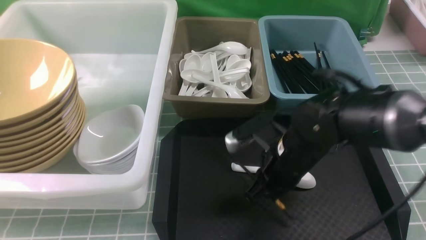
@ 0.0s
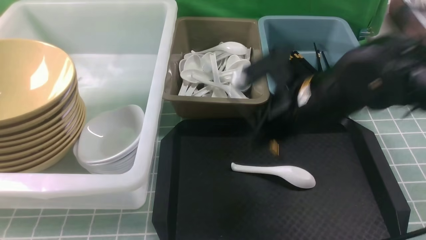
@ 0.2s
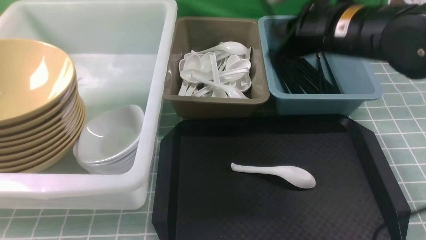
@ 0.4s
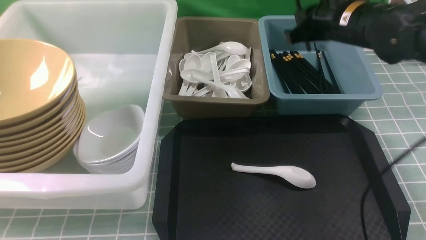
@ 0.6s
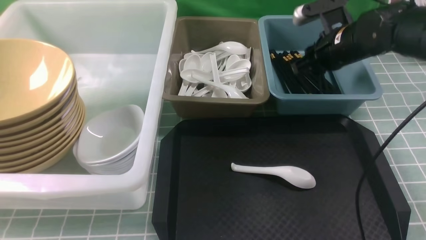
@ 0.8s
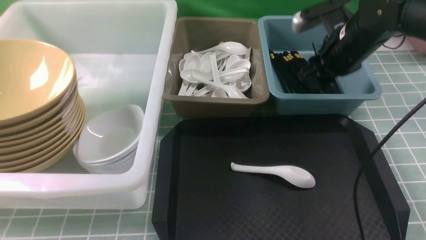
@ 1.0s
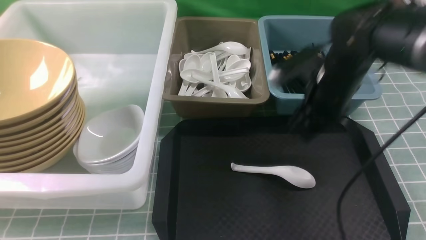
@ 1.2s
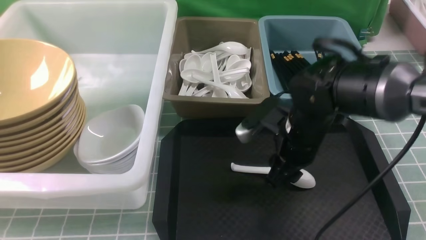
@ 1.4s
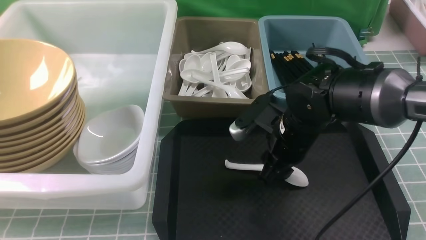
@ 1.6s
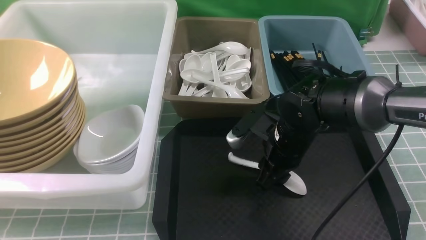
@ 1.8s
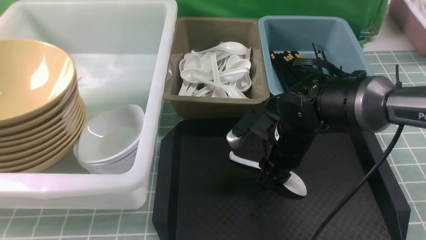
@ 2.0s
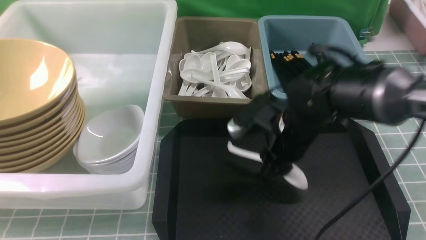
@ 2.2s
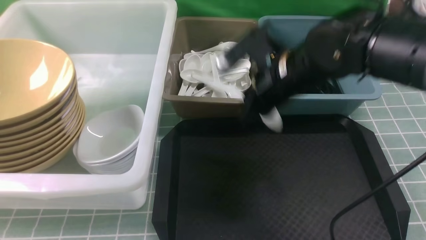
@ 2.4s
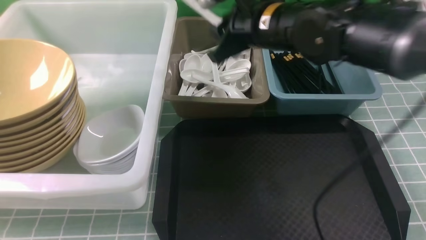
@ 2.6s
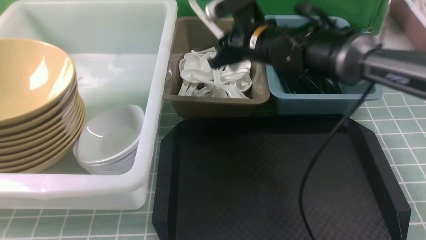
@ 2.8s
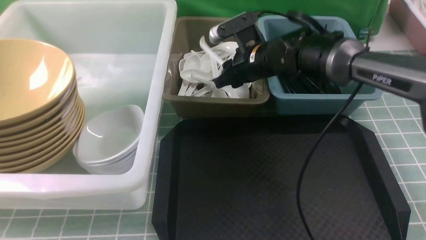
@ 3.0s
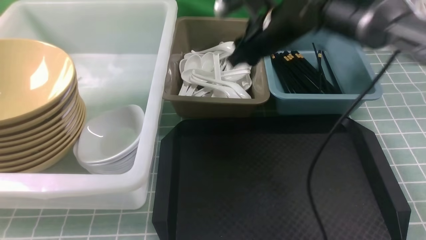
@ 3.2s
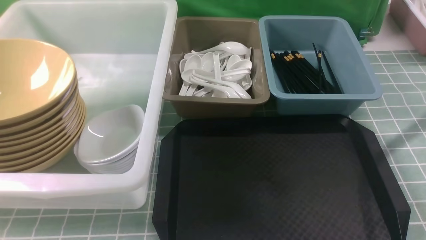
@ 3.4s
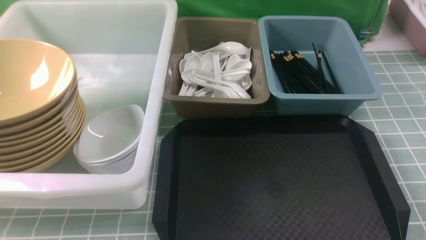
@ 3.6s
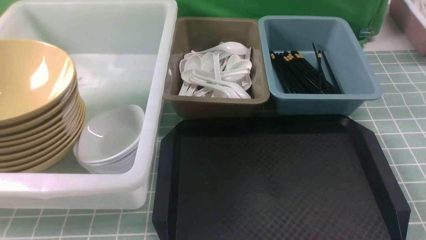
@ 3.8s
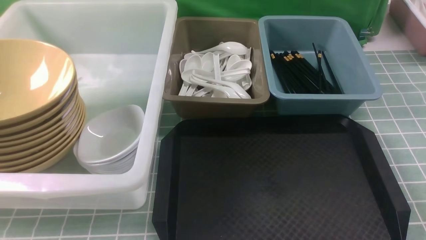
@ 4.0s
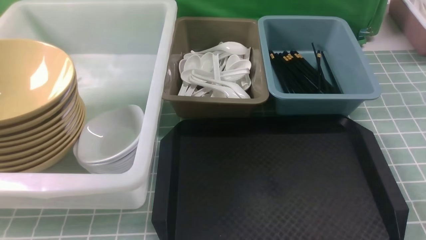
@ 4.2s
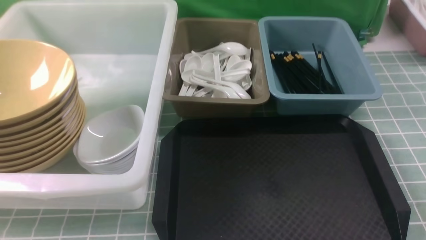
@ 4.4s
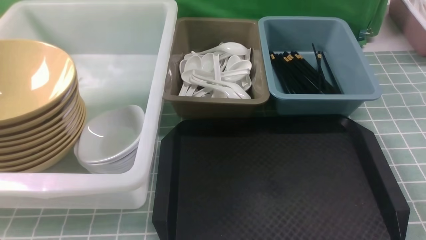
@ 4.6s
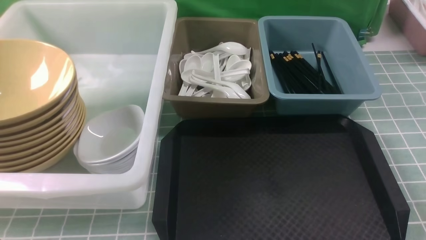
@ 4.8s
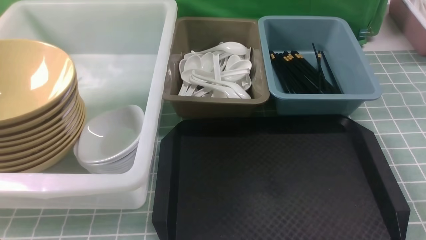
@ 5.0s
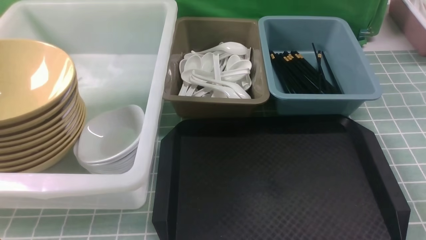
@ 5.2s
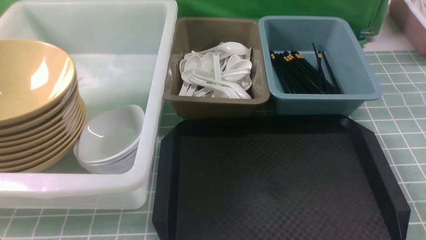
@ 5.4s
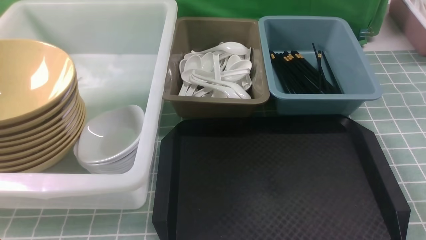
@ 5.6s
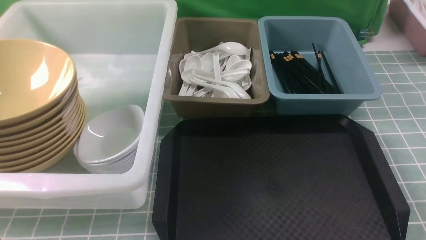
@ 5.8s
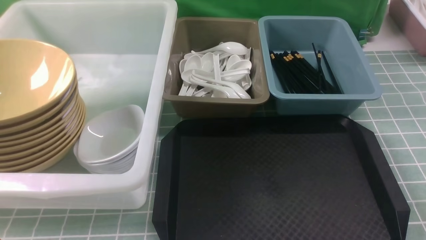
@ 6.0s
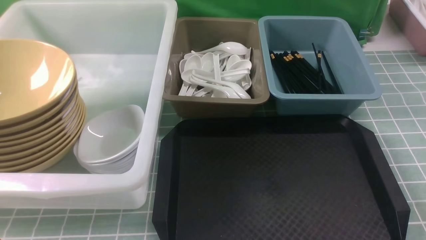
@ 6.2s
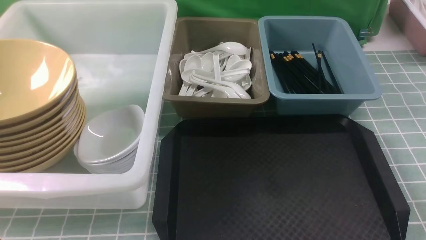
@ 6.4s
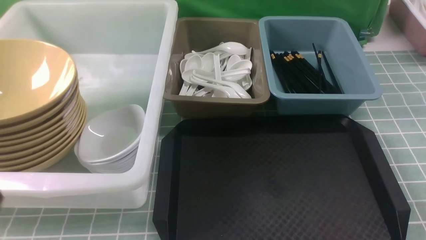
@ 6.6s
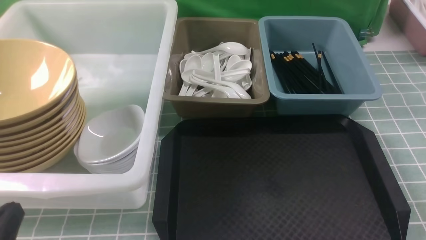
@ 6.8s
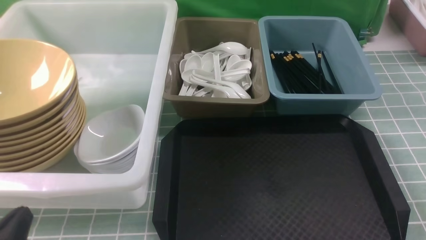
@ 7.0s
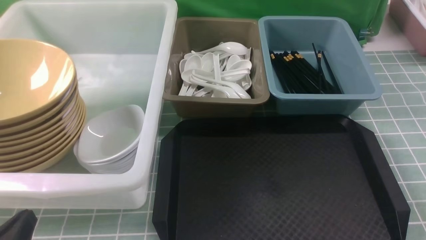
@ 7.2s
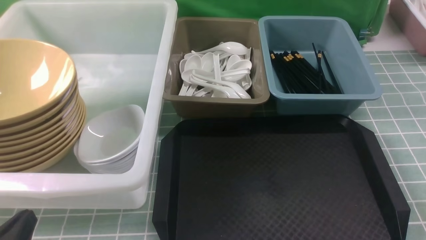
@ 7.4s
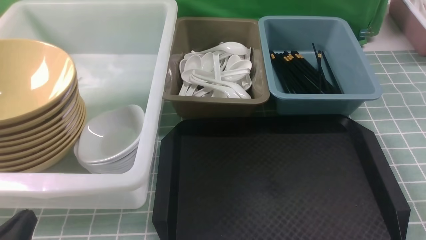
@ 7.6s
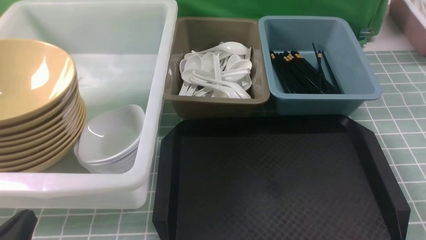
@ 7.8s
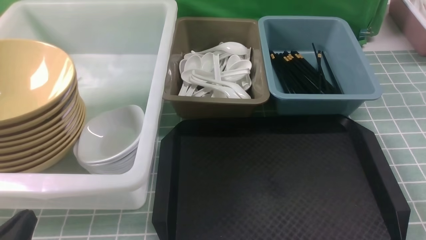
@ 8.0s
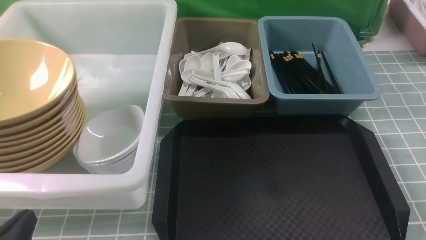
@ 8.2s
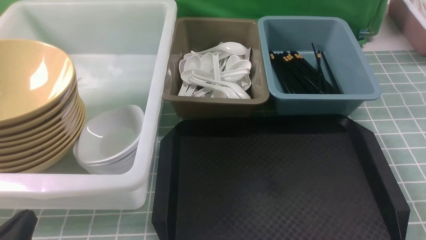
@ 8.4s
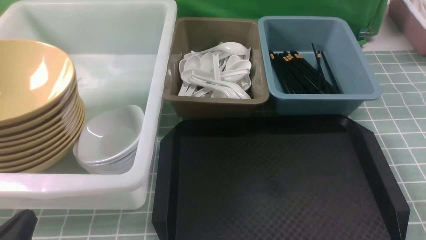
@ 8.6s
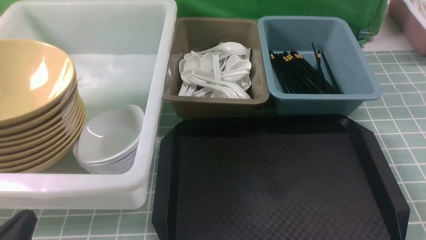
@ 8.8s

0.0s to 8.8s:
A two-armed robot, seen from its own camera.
Task of the whole recording: on blue table put chopsticks spoon bowls plates into blue grey white boxes.
Step, 0.4s to 0.8s: use the right arm to put a chopstick into the small storage box on the right.
Step, 1.0s to 2.4s: use the right arm to grab the soup spoon in the middle.
Step, 2.6s to 3.0s: use the right arm to put the soup spoon into the small storage box in the middle.
0.0s to 1.4s: The right gripper reaches some 15 cm forward, then returns, and opens its fingers.
1.4s to 3.0s: The right gripper shifts approximately 15 cm forward and upward.
3.0s to 4.4s: The right gripper travels backward and to the right by some 40 cm, and closes up.
5.8s to 7.4s: The left gripper shifts roughly 10 cm downward.
7.4s to 8.8s: Neither gripper changes place.

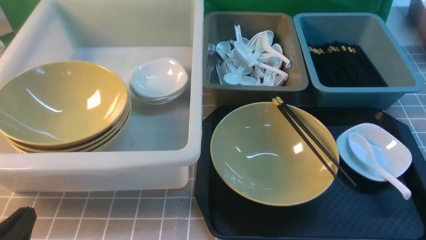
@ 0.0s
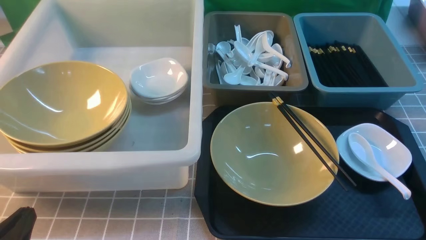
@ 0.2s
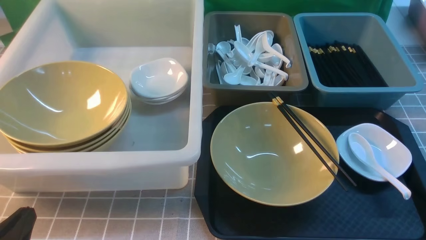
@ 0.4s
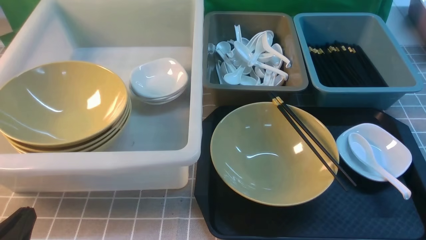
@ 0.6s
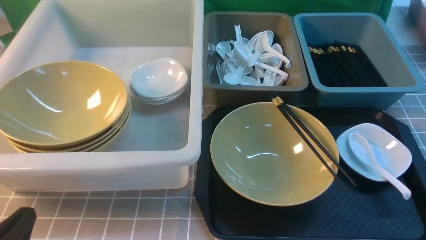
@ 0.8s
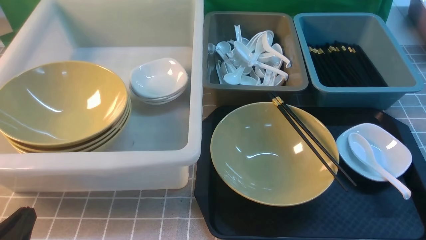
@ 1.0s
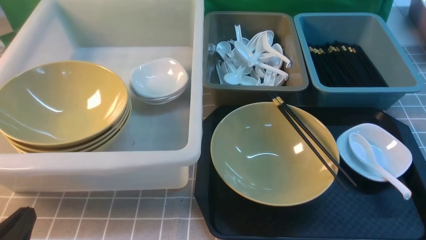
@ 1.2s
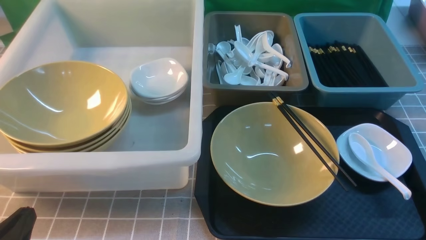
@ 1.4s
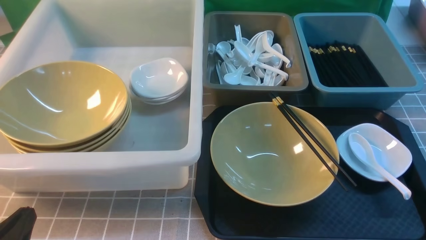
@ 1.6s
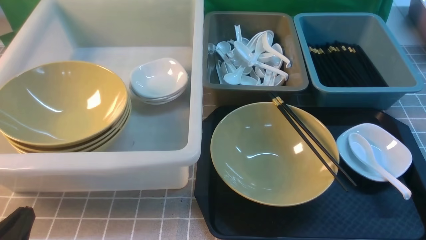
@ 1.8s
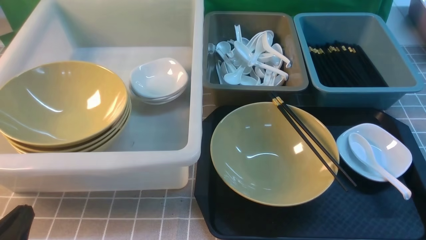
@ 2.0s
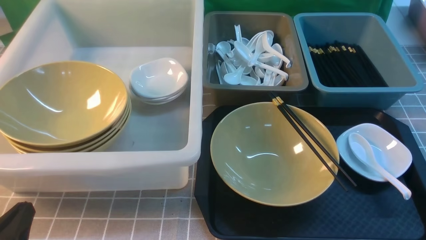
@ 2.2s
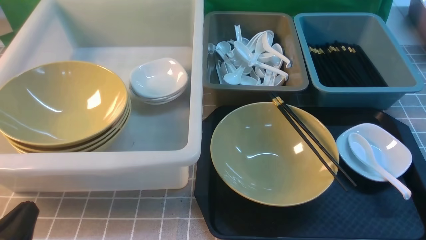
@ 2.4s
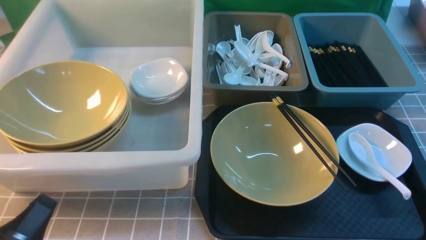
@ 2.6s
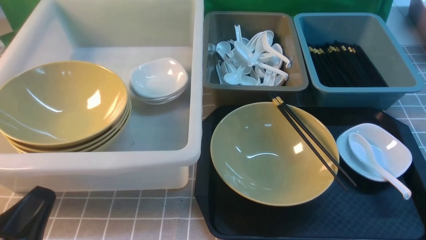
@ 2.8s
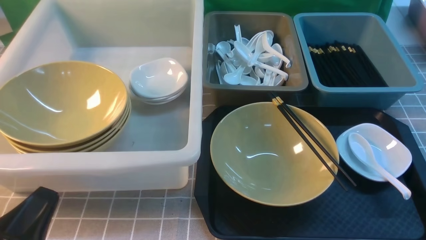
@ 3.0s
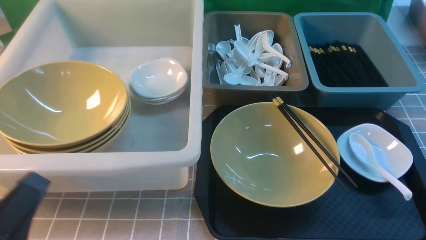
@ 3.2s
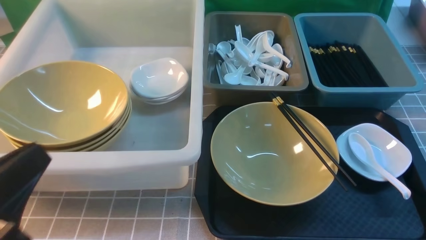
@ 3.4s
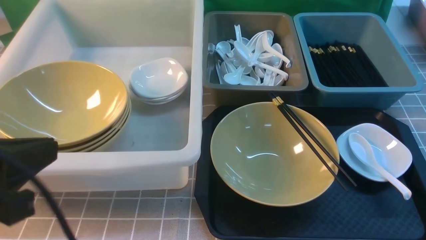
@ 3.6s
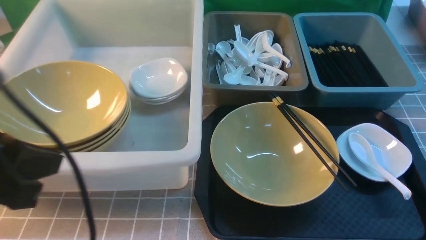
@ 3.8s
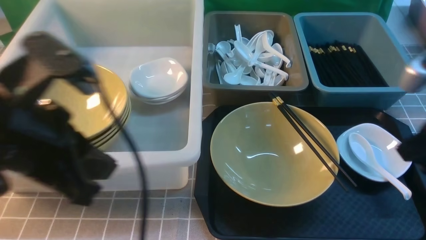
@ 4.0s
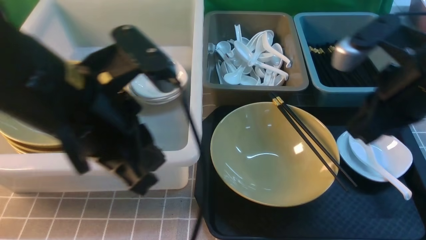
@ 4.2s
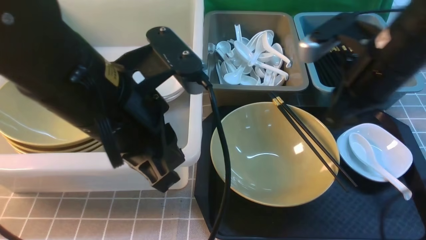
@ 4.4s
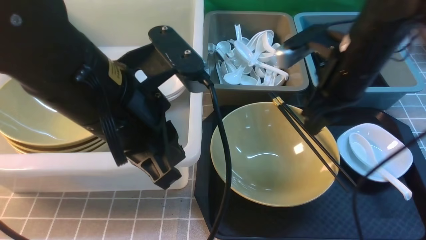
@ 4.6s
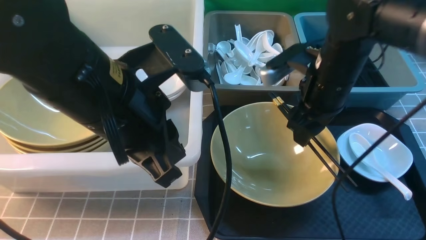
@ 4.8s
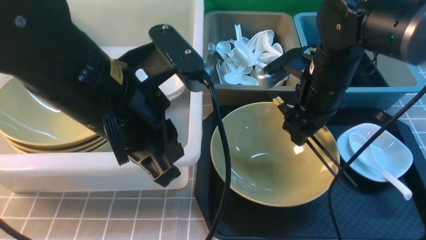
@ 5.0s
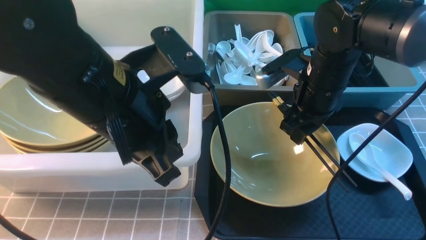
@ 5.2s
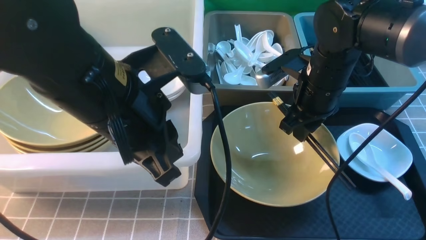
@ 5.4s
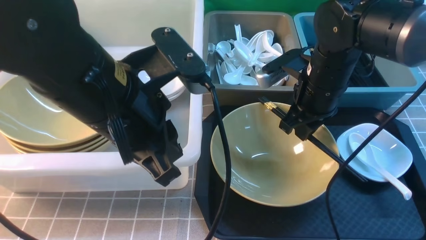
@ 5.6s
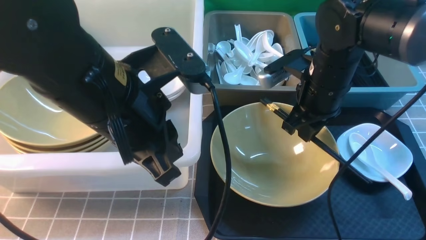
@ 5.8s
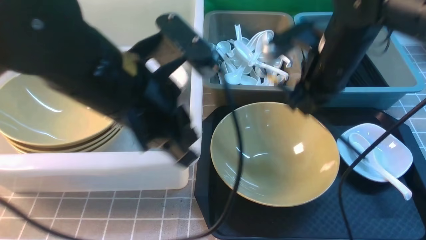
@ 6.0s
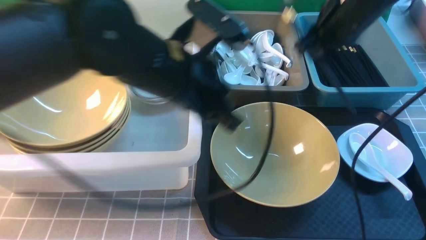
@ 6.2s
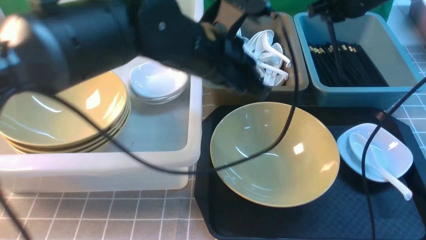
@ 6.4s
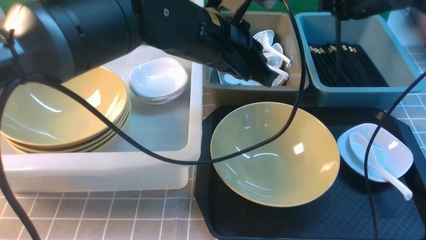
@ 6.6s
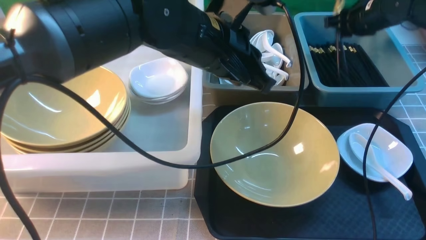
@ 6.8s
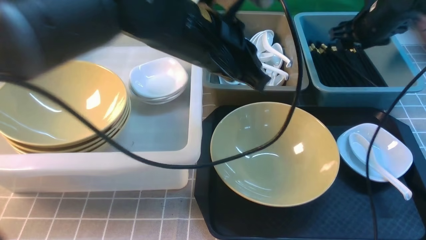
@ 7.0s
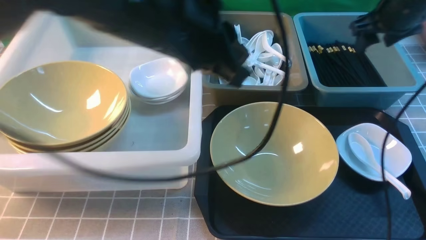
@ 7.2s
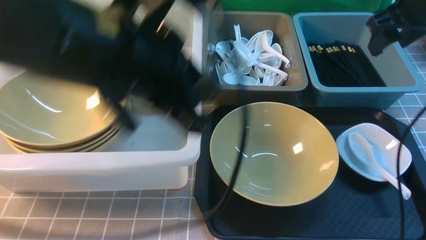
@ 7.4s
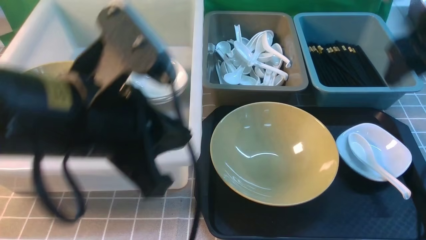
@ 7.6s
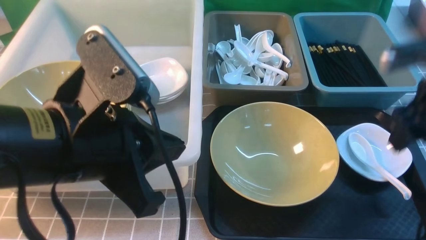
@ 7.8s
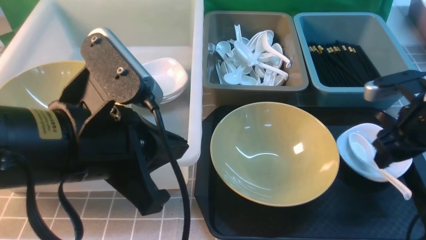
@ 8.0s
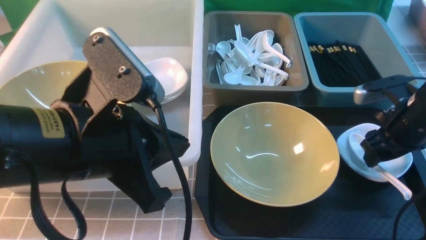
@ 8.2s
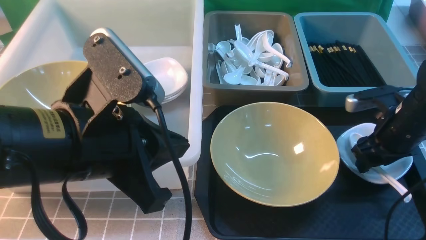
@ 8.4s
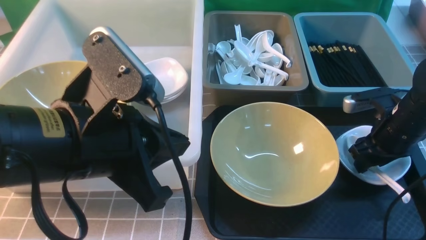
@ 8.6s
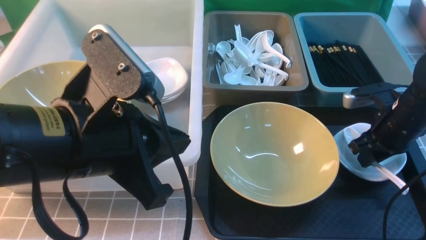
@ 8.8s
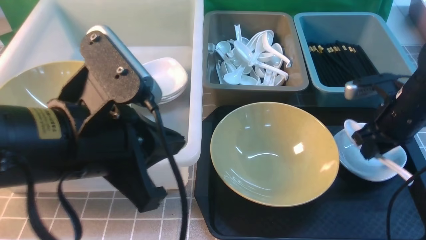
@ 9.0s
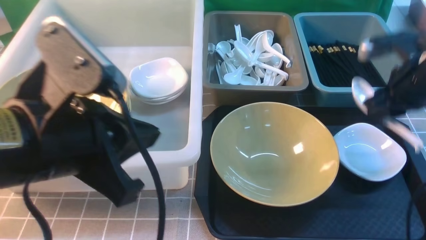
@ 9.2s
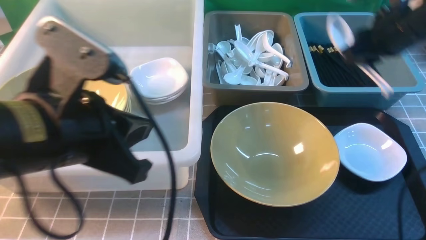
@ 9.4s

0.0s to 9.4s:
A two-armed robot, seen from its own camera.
Task of the whole recording: on grey table put chopsticks spoon bowls plates into blue grey white boxes.
Step, 0.0s to 5.6s: use the right arm to grab the chopsticks.
Step, 5.8s to 7.2s: use the right arm to put the chopsticks into the small storage box on the right.
Step, 7.4s to 9.0s: use the right arm to grab the soup spoon in the middle.
0.0s to 1.6s: The two grippers keep their place.
1.6s to 3.2s: The left gripper goes roughly 5 cm upward.
3.2s to 4.8s: The left gripper travels forward, to the right and upward by some 20 cm. Meanwhile the right gripper is displaced forward and to the left by some 35 cm, and opens its fingers.
4.8s to 6.2s: The left gripper heads forward and to the right, covering some 10 cm. Meanwhile the right gripper heads forward and upward, covering approximately 10 cm, and closes.
6.2s to 7.8s: The left gripper is displaced backward and to the left by about 15 cm, while the right gripper travels backward and to the right by approximately 15 cm, and opens up.
7.8s to 9.4s: The right gripper goes some 10 cm to the left, forward and upward, and closes its fingers.
